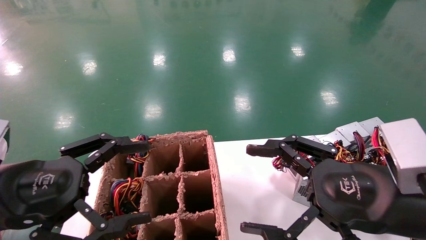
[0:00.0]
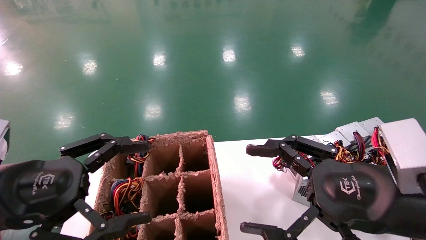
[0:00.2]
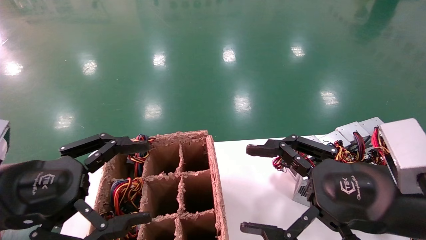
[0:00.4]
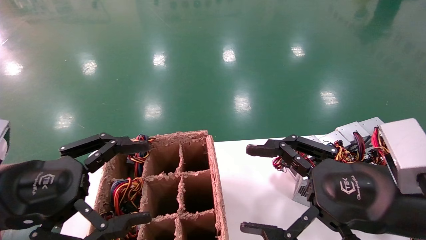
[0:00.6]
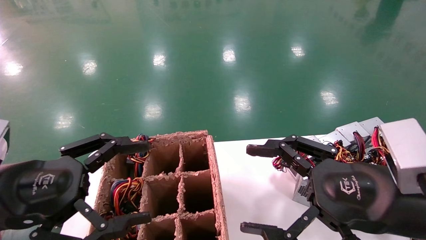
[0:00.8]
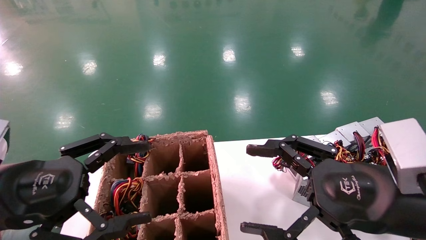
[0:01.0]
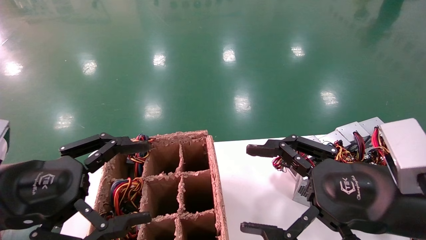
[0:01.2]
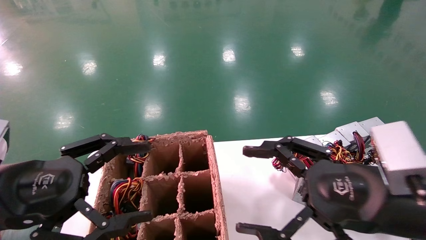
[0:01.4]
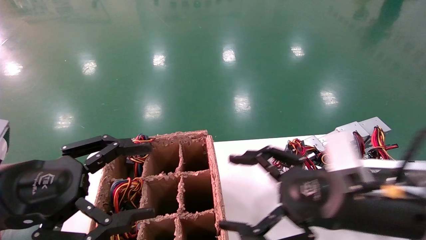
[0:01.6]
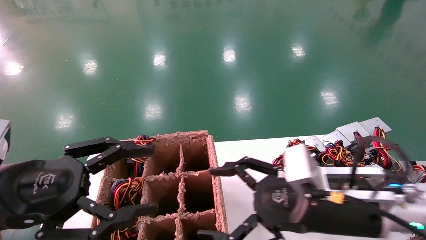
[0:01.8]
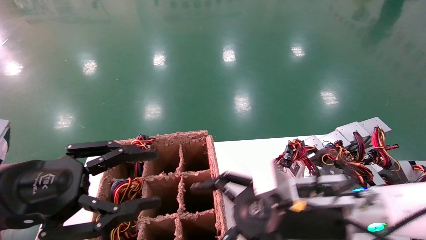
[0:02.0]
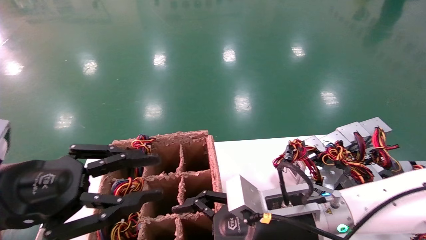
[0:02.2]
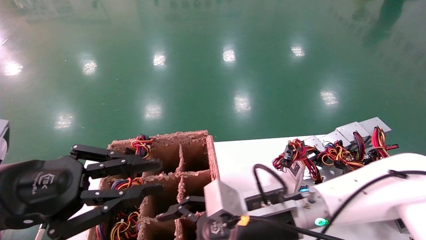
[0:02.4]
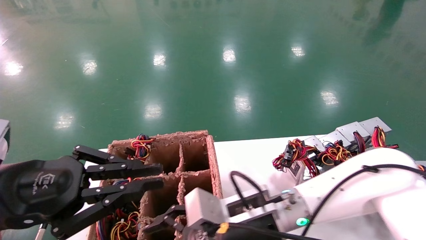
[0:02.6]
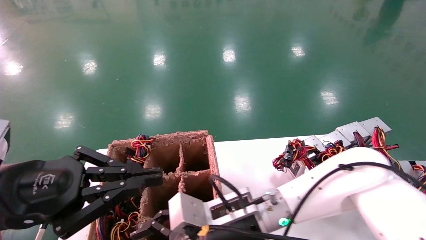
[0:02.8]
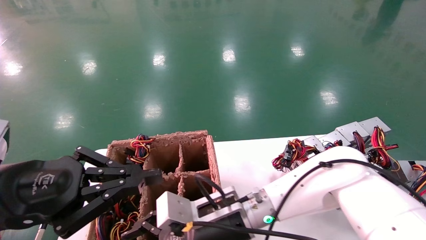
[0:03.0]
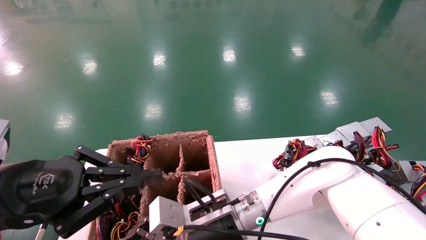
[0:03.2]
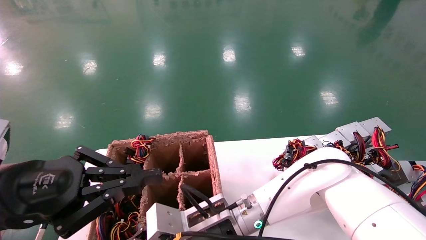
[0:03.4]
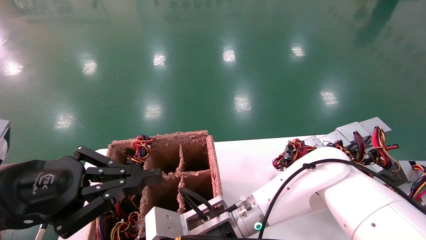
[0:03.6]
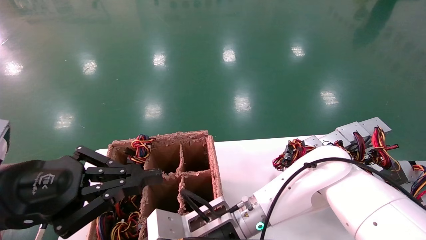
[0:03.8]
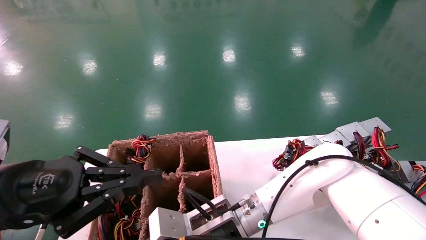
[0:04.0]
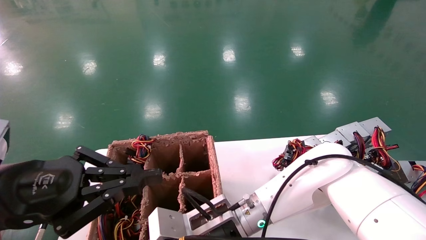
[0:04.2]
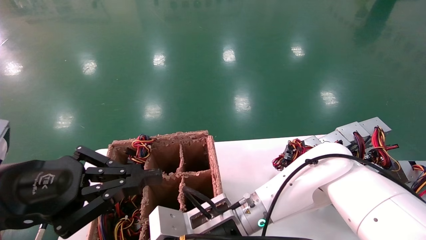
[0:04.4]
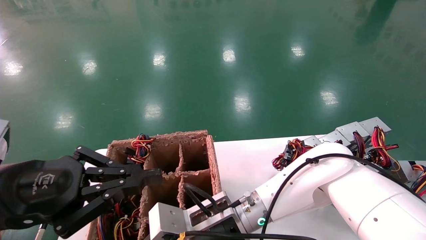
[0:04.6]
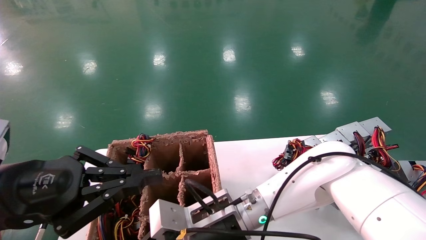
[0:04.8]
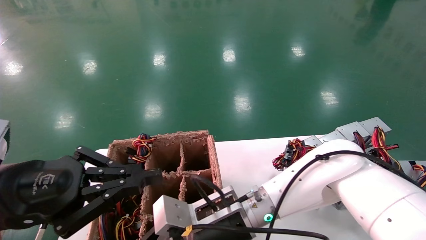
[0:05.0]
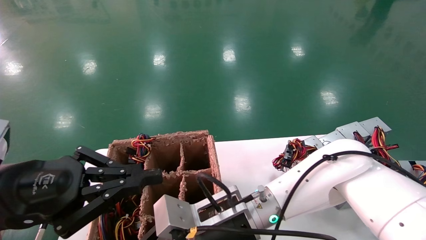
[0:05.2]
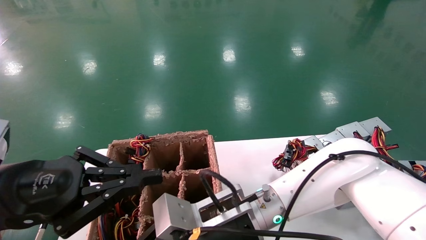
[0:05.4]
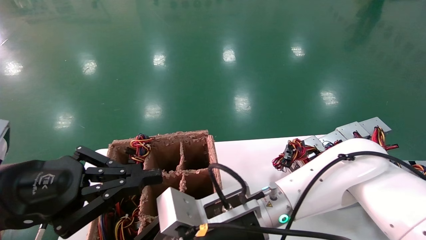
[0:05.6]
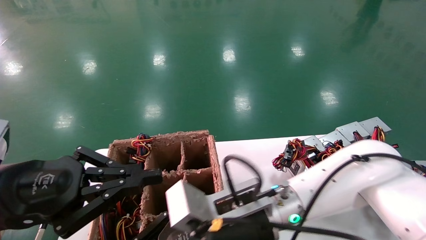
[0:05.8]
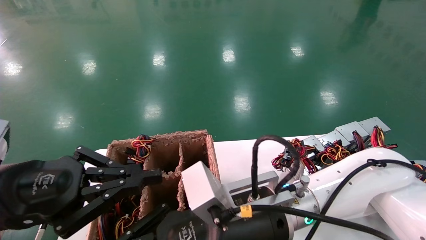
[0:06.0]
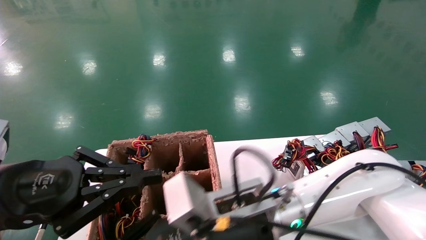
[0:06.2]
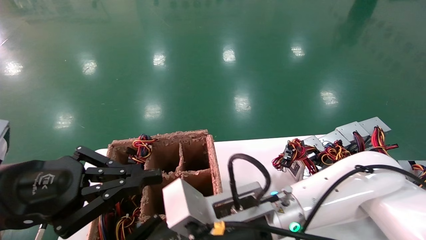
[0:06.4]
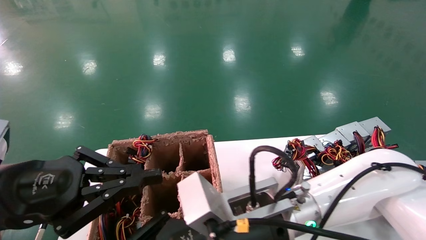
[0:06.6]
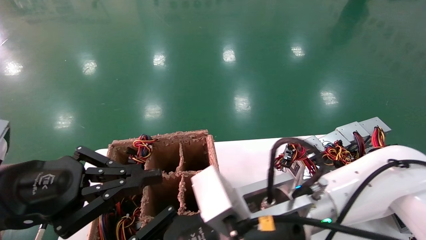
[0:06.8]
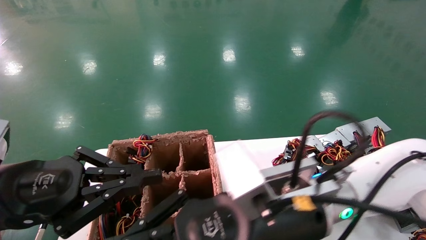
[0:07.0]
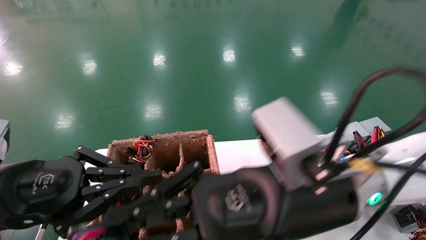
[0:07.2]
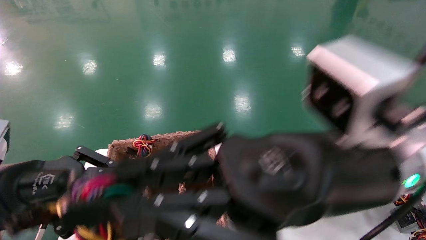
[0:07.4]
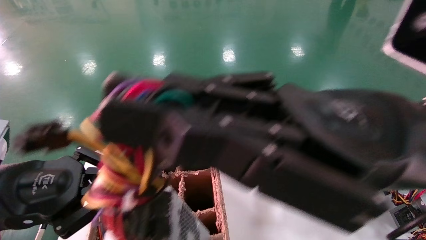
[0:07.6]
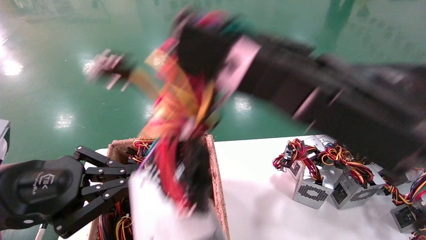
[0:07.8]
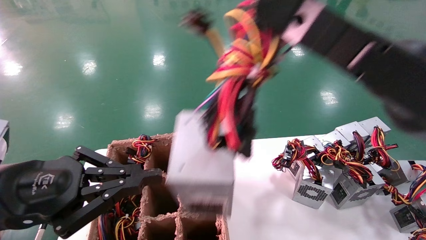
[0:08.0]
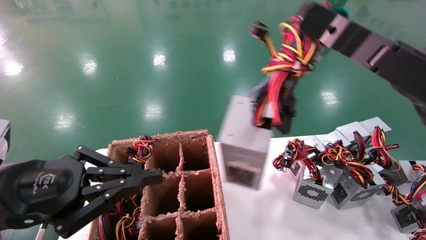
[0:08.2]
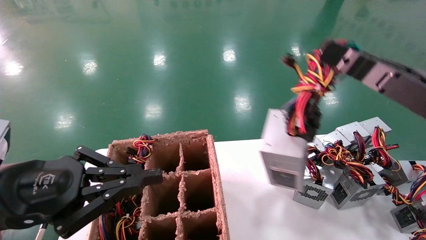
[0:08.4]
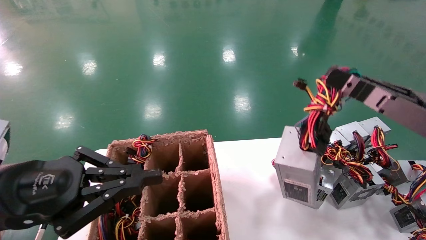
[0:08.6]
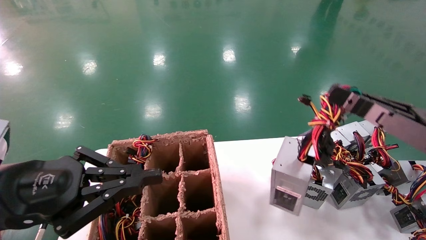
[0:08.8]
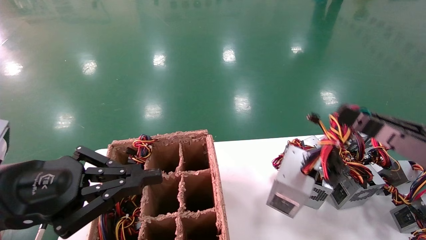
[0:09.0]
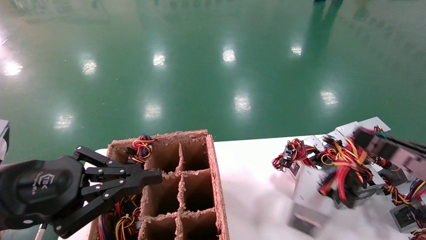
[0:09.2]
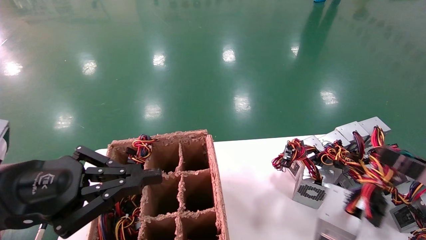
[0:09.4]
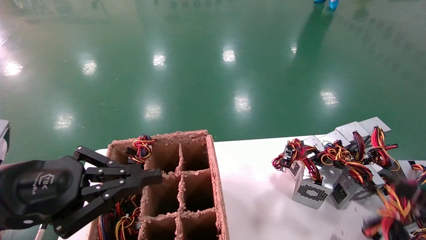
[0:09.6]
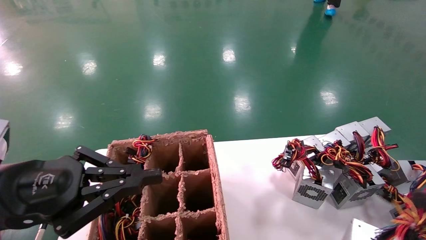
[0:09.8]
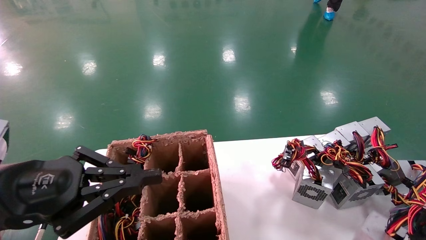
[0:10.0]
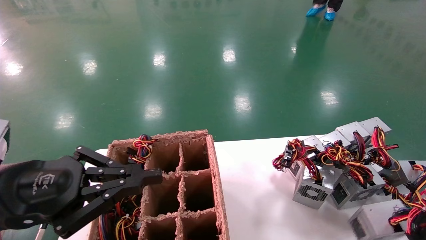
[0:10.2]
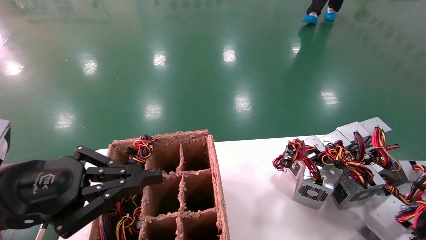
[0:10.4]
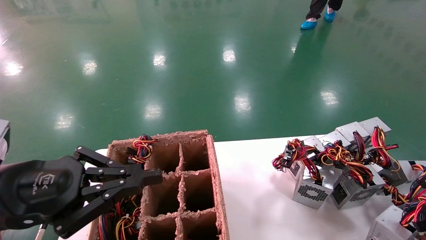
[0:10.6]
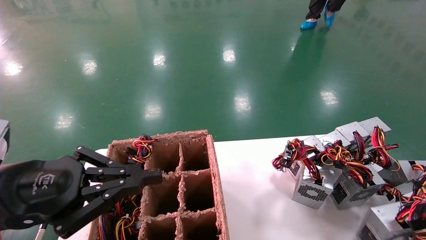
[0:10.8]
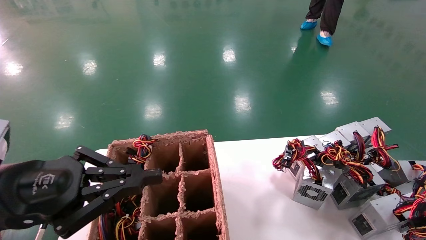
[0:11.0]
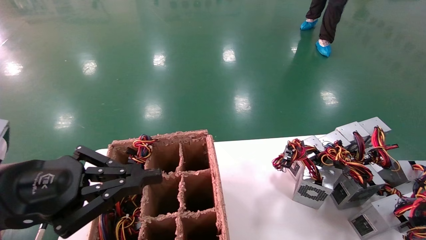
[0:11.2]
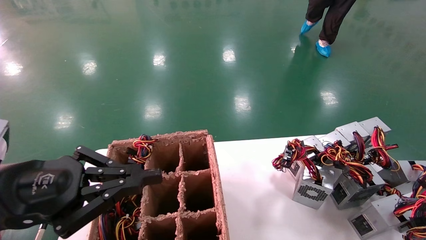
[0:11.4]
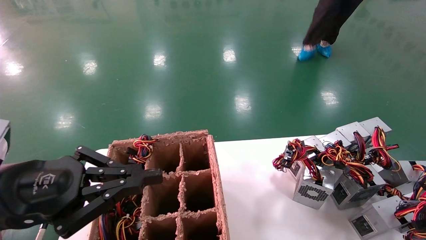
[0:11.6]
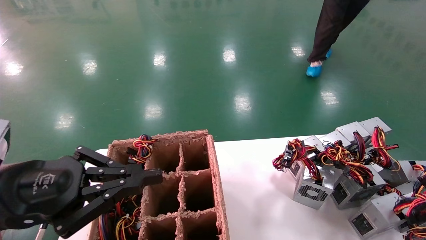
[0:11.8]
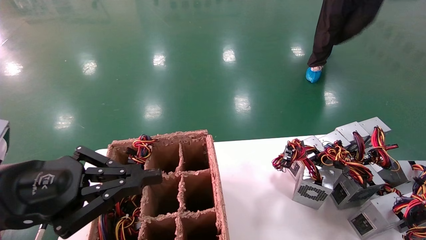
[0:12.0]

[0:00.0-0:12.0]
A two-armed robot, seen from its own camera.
Step, 0:01.6 to 0:04.4: Grab the main unit power supply from the containment box.
0:00.0 to 0:01.6: The grippers move only a little.
0:01.6 to 0:03.0: The left gripper closes its fingers. The right gripper travels to the left, downward and forward by some 20 cm.
0:03.0 to 0:04.4: The right gripper closes its fingers.
0:04.4 to 0:06.0: The right gripper travels upward and backward by about 10 cm.
0:06.0 to 0:07.6: The right gripper moves upward, to the right and backward, some 20 cm.
0:07.6 to 0:09.0: The right gripper heads to the right, covering approximately 20 cm.
0:09.0 to 0:10.4: The right gripper is displaced downward, to the right and backward by some 20 cm.
0:10.4 to 0:12.0: The grippers stay close to where they were, moving slightly.

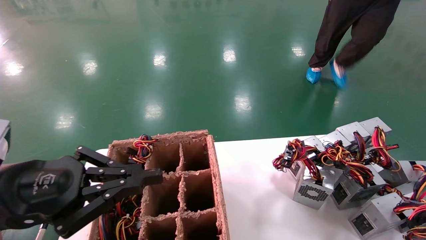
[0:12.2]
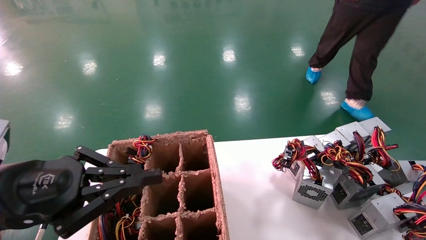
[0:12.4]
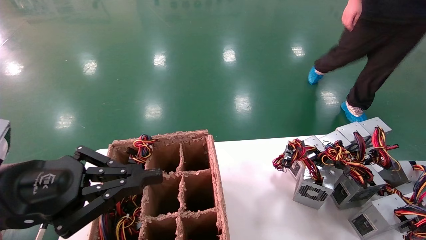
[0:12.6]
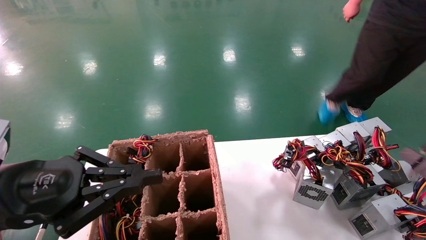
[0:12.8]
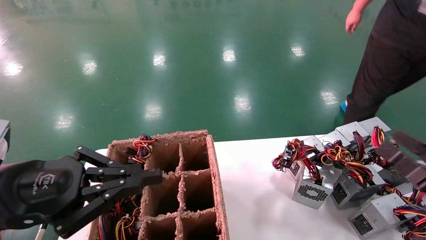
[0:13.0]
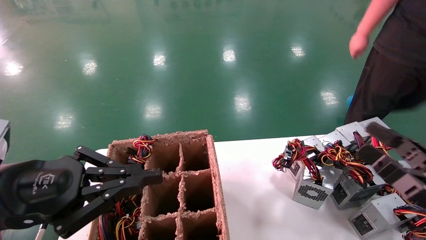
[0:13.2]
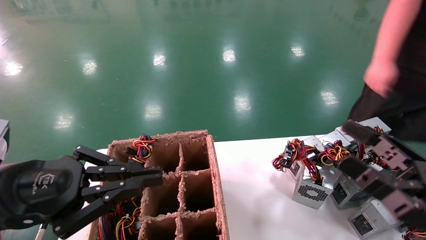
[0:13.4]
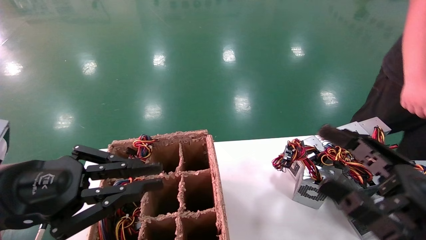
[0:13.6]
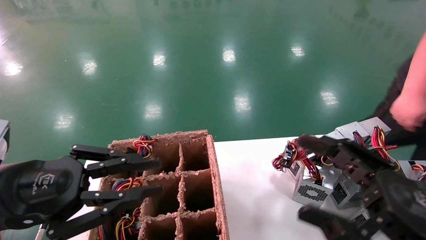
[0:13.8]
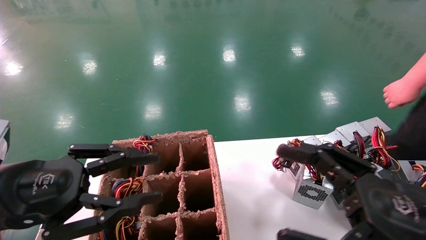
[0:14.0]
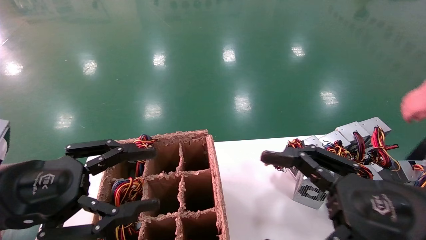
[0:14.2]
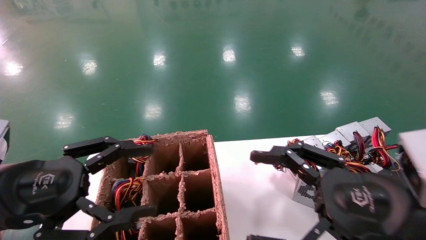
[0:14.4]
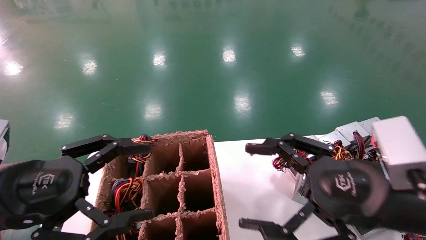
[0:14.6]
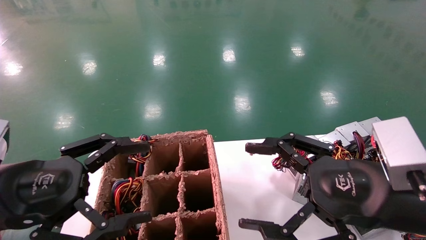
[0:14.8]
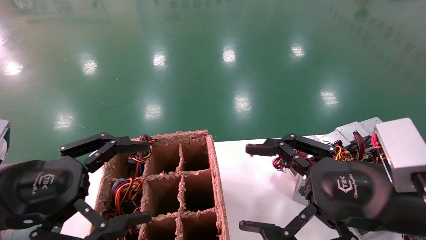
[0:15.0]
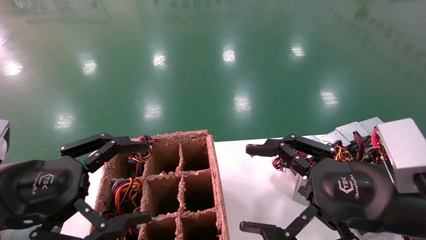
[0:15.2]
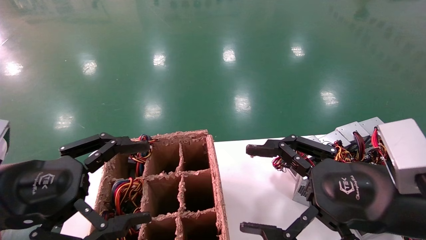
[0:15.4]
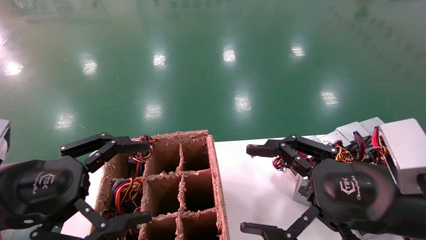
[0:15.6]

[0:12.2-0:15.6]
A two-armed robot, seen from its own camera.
0:12.2 to 0:13.8: The right gripper is displaced to the left and upward by approximately 25 cm, and opens its fingers.
0:13.8 to 0:15.6: The right gripper changes place by roughly 5 cm. The left gripper opens up.
